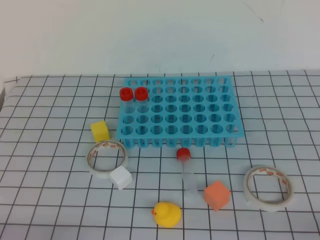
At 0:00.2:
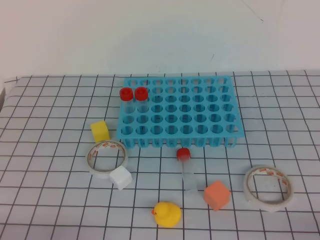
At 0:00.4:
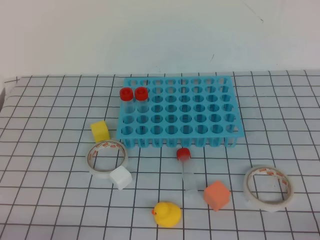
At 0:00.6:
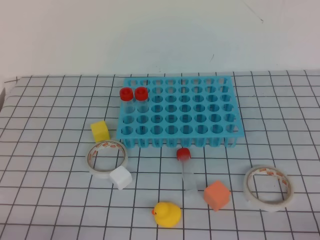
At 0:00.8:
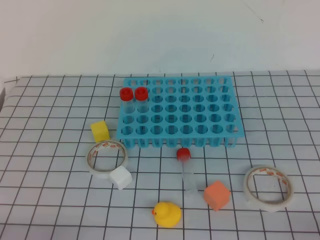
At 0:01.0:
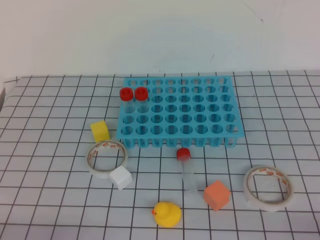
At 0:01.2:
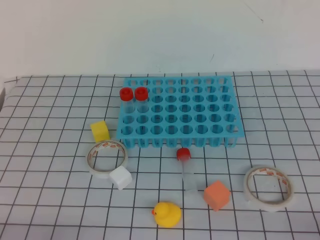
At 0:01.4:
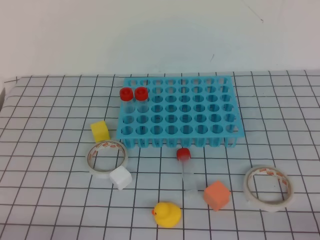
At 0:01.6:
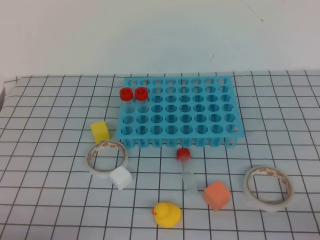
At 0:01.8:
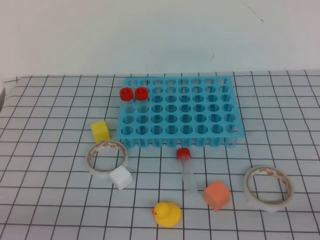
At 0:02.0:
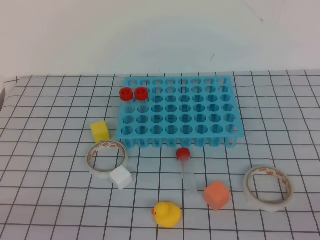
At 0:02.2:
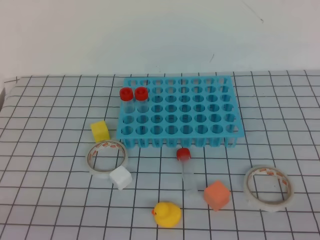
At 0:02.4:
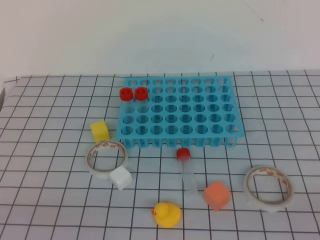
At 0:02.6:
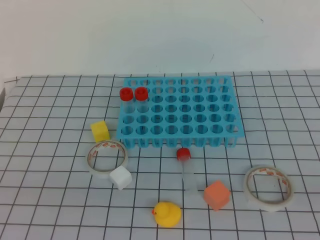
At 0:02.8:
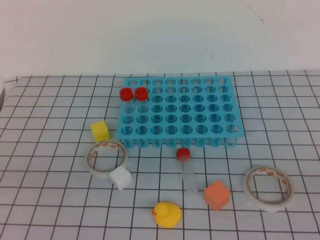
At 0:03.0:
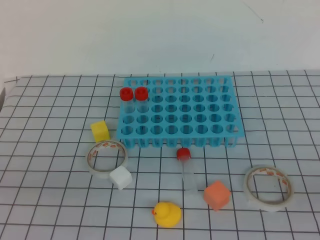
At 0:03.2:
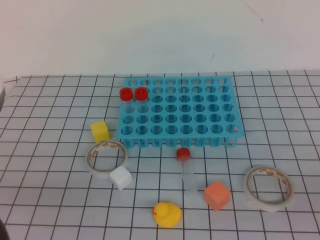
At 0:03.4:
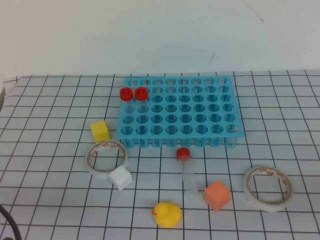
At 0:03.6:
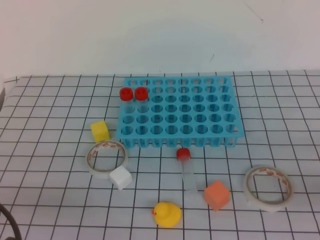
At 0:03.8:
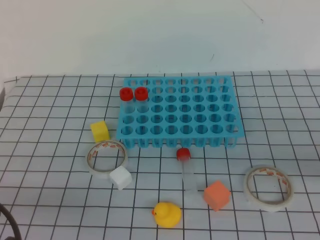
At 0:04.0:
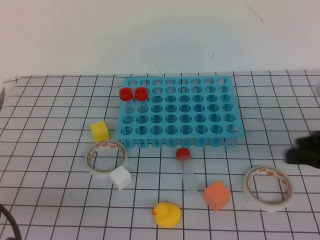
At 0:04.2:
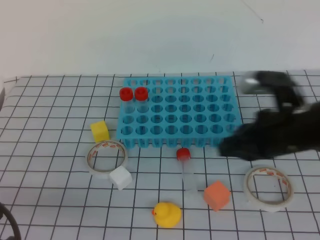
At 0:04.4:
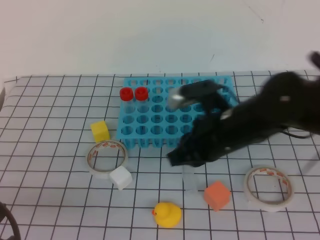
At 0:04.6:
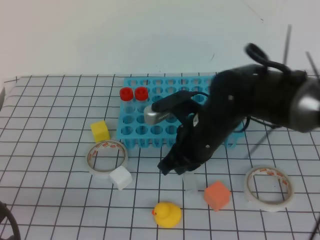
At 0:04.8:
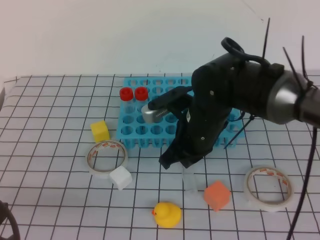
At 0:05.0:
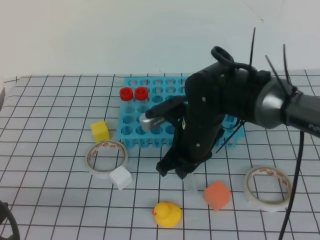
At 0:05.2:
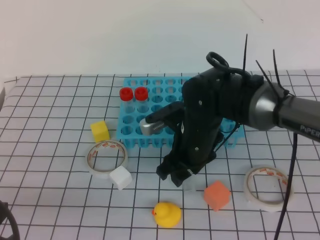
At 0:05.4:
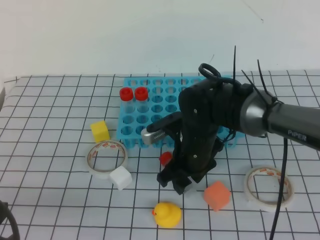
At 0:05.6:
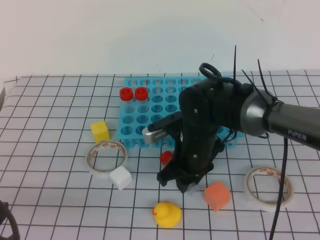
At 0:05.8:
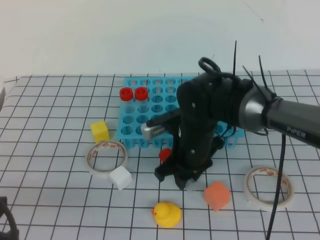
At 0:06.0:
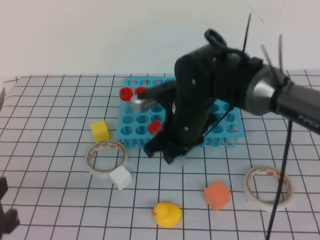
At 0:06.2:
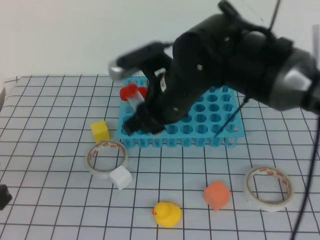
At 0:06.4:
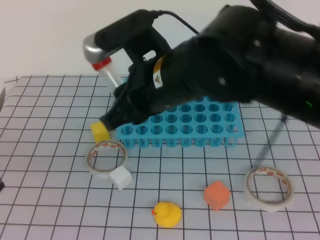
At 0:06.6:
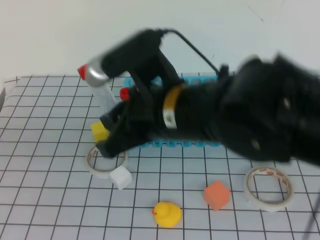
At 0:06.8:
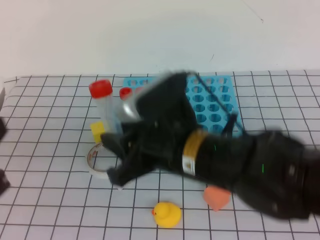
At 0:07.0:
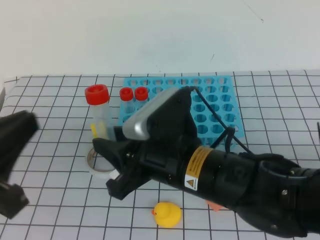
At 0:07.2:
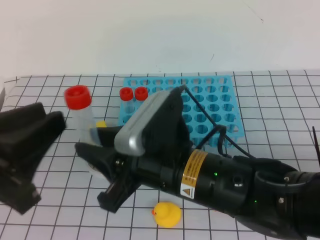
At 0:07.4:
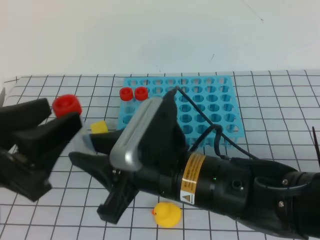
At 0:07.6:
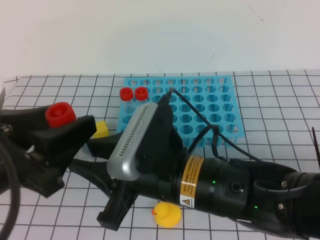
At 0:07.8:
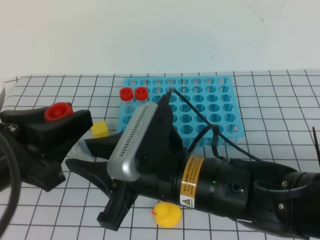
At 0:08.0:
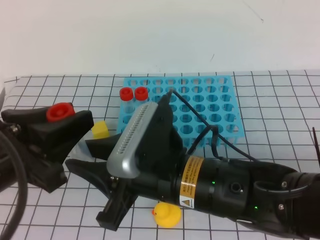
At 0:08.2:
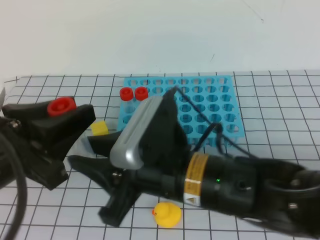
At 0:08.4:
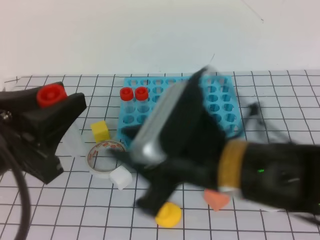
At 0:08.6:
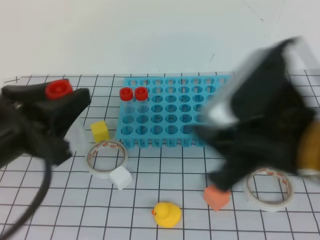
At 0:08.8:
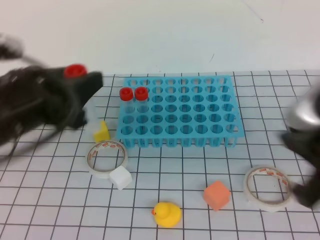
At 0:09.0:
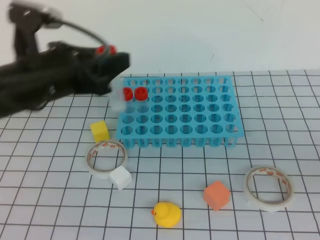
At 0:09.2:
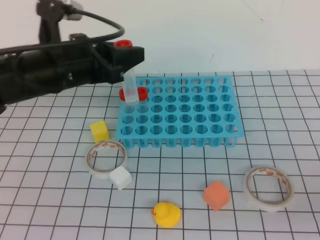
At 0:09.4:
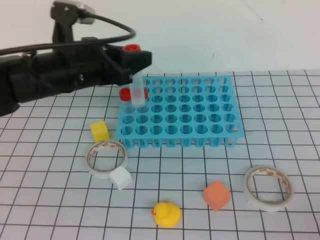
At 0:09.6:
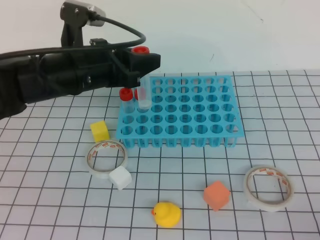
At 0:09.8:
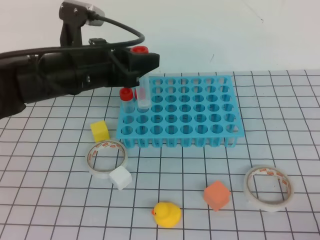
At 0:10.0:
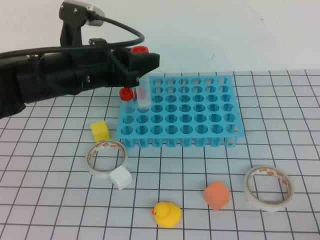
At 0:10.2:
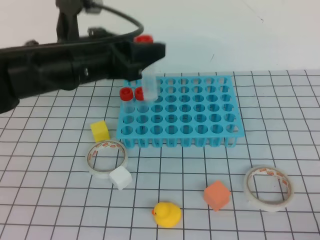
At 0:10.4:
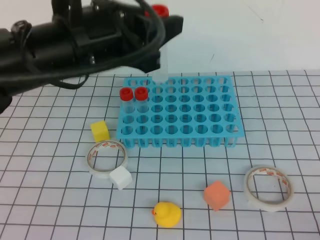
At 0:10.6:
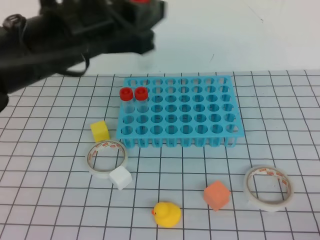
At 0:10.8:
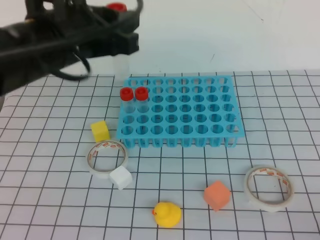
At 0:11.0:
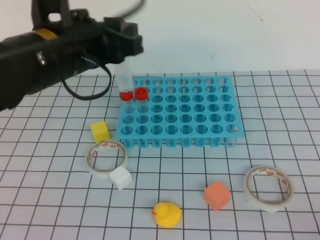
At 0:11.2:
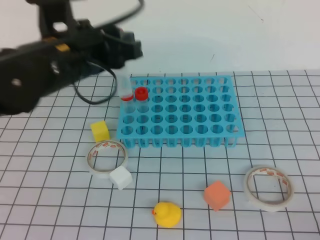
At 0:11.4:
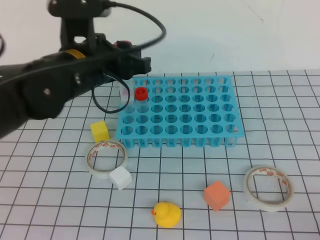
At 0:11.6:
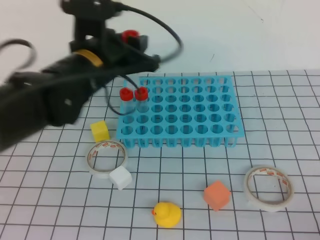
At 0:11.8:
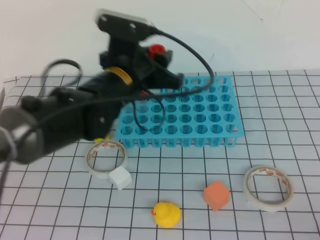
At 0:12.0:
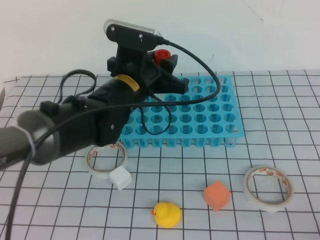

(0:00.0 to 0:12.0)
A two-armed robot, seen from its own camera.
0:01.6 - 0:03.0: The left gripper goes about 15 cm upward.
0:03.0 - 0:04.4: The right gripper moves forward and to the left, some 30 cm, while the left gripper moves downward and forward, some 10 cm.
0:04.4 - 0:06.0: The right gripper is displaced to the left and forward by roughly 15 cm, and opens up.
0:06.0 - 0:07.6: The right gripper moves backward and upward, approximately 15 cm. The left gripper shifts about 5 cm upward, and opens its fingers.
0:07.6 - 0:09.0: The right gripper goes roughly 20 cm to the right and upward, and closes up; the left gripper travels forward by approximately 10 cm.
0:09.0 - 0:10.4: The left gripper moves to the right and forward, approximately 10 cm, while the right gripper heads to the right, backward and downward, covering some 15 cm.
0:10.4 - 0:12.0: The left gripper shifts some 10 cm downward and to the right.

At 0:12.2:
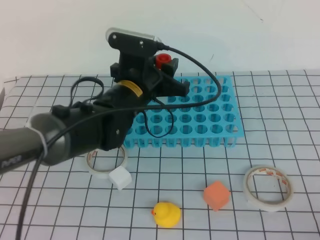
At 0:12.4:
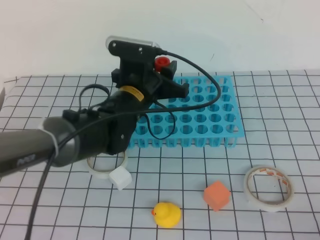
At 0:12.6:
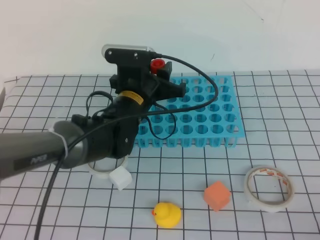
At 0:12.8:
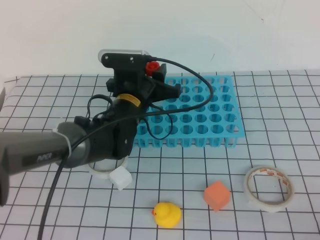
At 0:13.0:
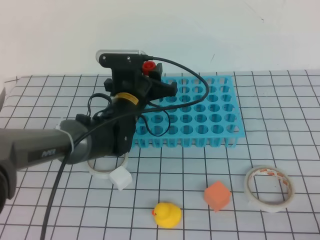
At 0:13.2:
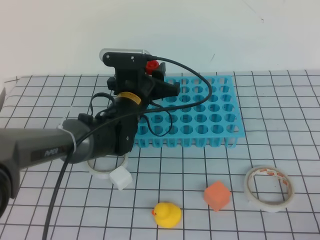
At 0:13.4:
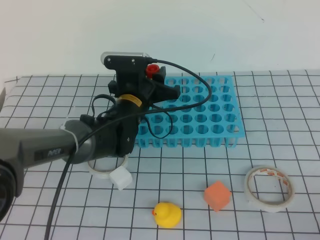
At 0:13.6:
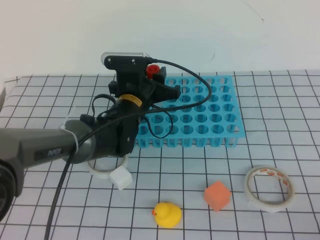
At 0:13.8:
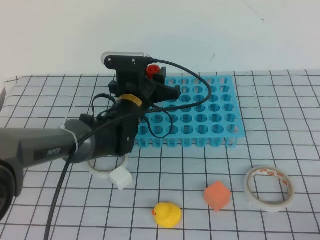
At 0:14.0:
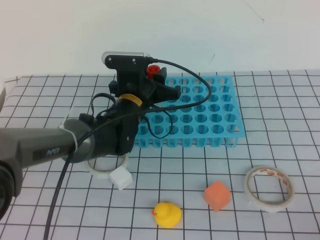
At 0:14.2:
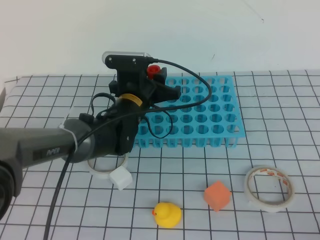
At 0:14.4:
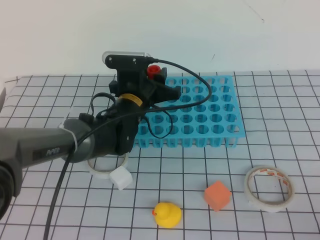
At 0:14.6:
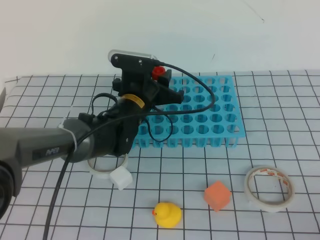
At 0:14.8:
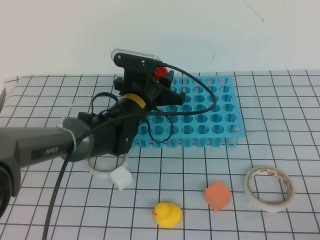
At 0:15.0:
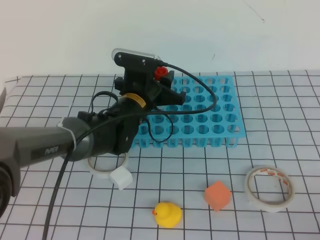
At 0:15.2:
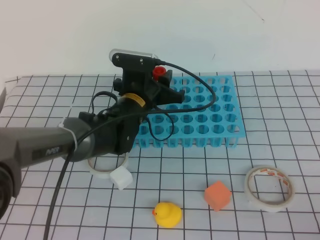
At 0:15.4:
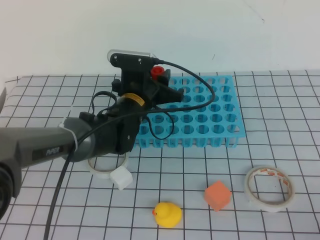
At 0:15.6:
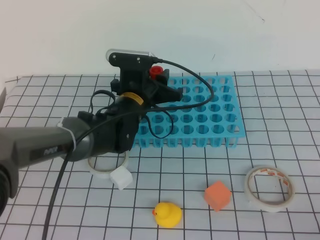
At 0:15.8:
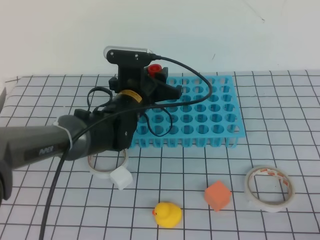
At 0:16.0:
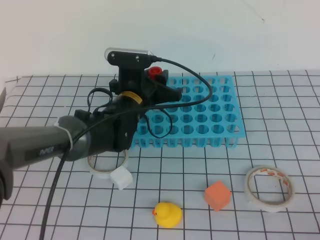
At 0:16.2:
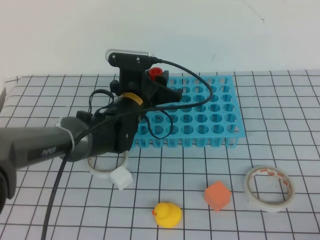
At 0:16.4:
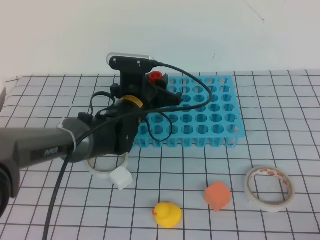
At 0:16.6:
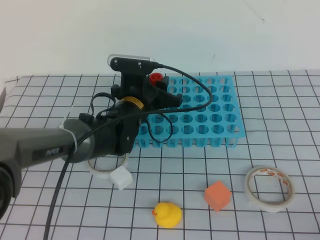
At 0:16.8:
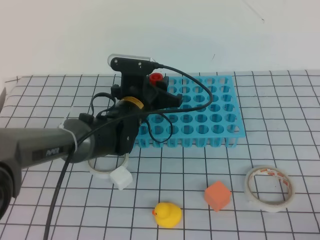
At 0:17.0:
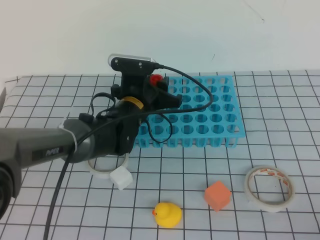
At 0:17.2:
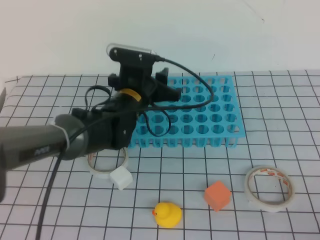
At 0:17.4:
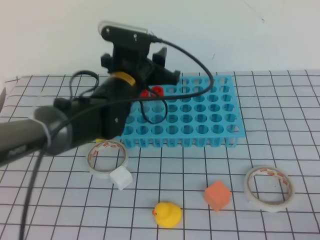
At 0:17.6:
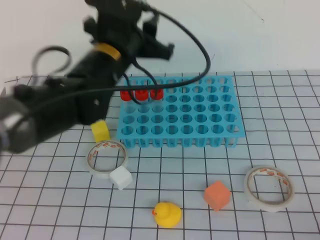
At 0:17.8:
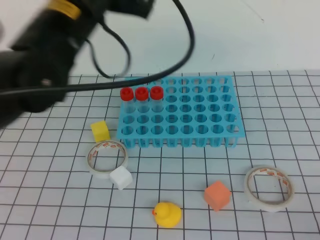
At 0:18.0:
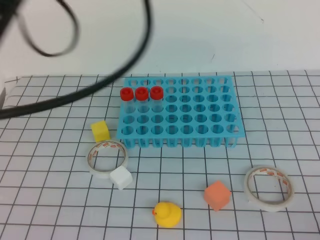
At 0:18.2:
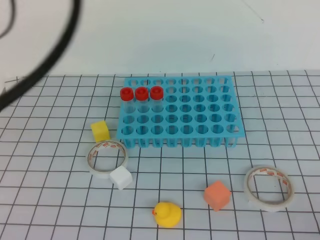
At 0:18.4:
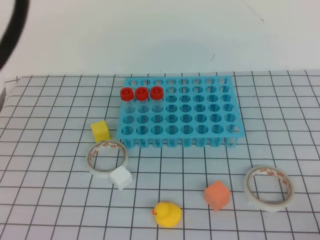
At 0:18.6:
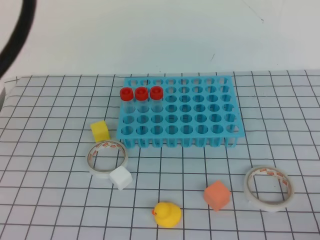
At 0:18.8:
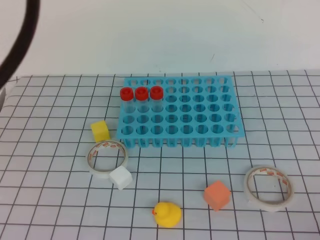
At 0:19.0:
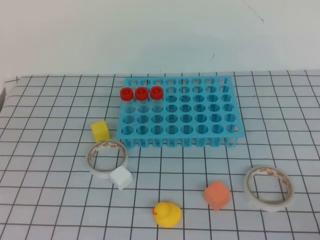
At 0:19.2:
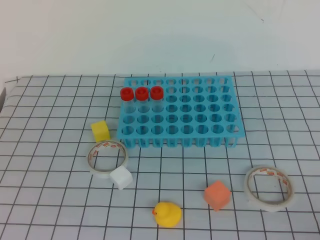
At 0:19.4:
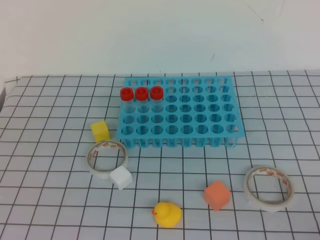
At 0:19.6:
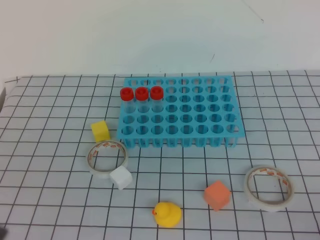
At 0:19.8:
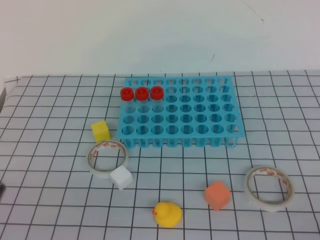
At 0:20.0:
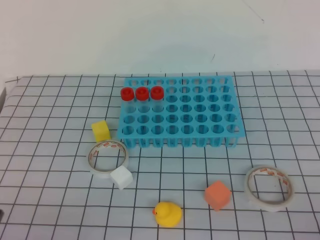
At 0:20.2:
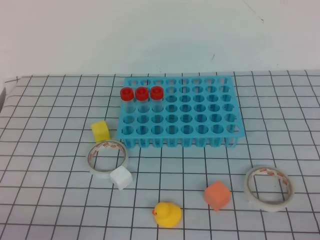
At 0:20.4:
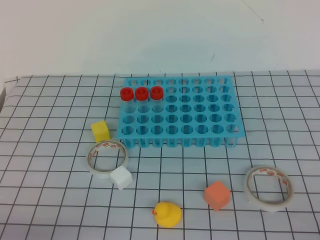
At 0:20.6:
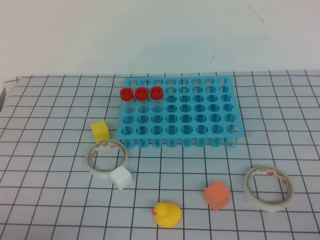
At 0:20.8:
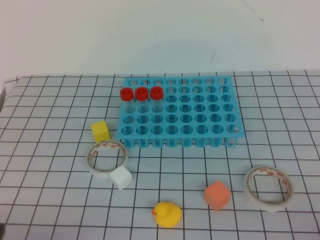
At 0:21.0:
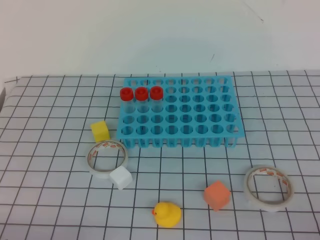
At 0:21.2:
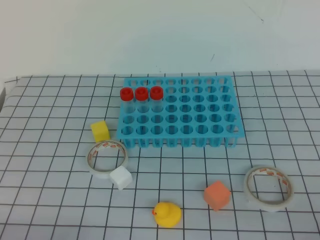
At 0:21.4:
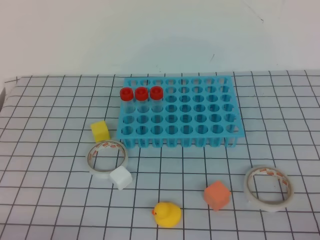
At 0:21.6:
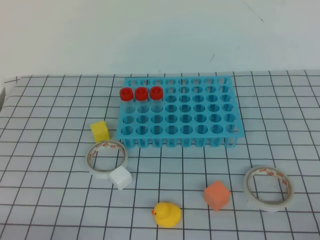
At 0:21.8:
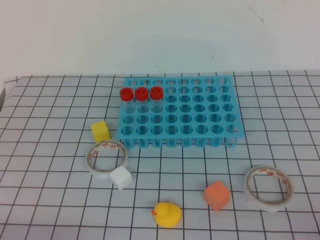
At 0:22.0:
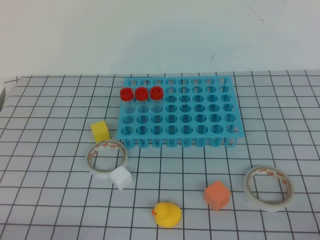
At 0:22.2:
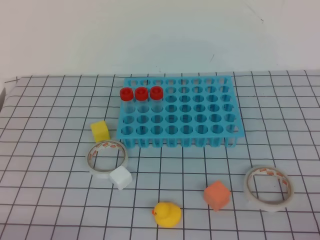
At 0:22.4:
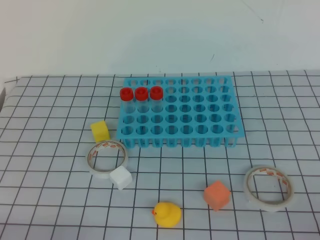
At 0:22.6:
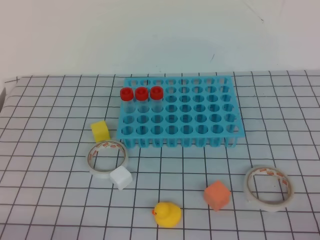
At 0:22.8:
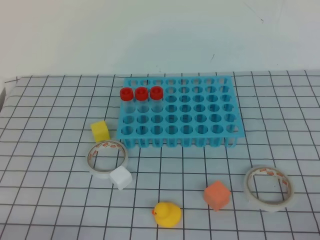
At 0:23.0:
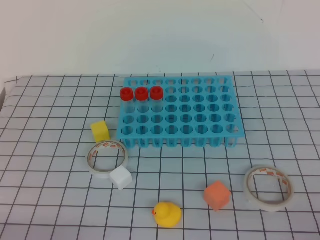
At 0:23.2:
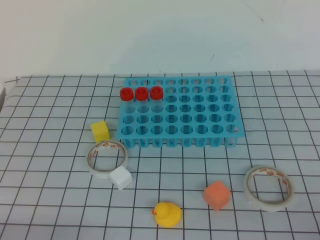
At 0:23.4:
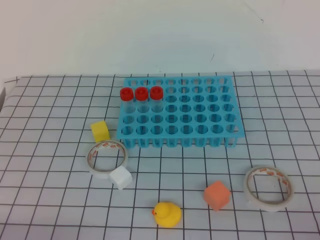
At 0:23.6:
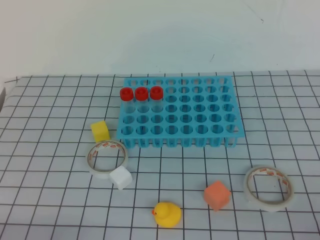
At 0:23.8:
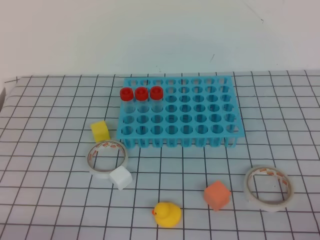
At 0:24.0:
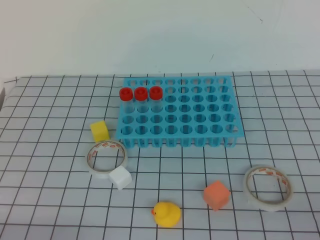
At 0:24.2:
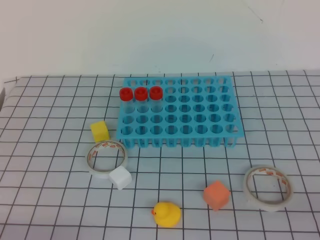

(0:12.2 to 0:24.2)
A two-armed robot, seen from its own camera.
0:12.2 - 0:13.8: The left gripper moves downward, approximately 5 cm.
0:13.8 - 0:15.2: The grippers stay close to where they were, moving slightly.
0:15.2 - 0:16.6: Both grippers stay about where they are.
0:16.6 - 0:18.2: The left gripper heads upward and backward, covering roughly 35 cm, and closes up.
0:18.2 - 0:19.8: The left gripper is displaced downward, backward and to the left by about 25 cm.
